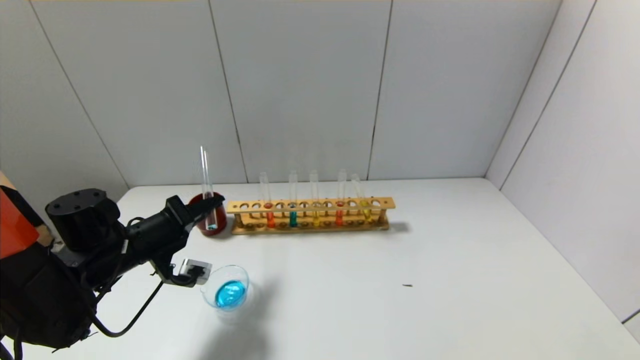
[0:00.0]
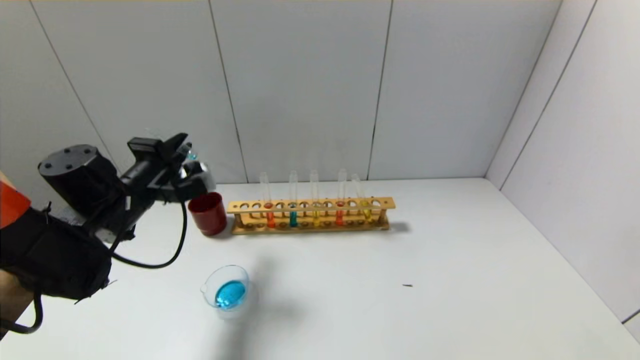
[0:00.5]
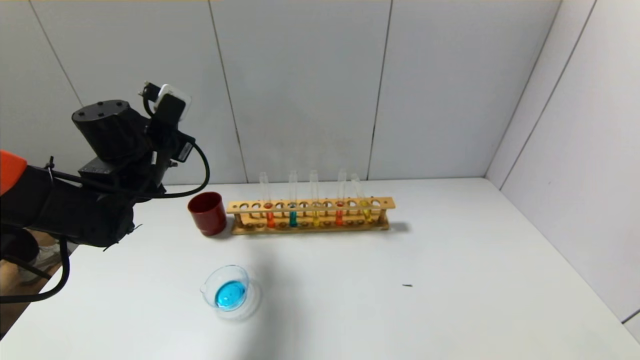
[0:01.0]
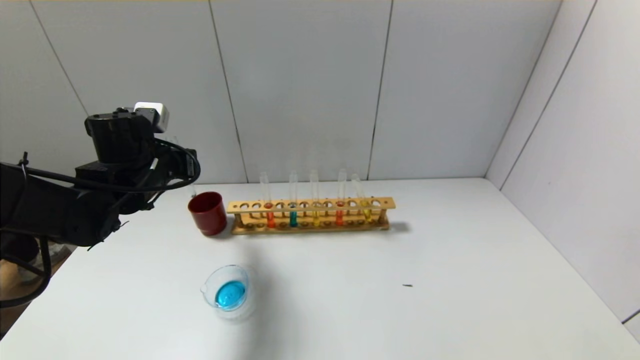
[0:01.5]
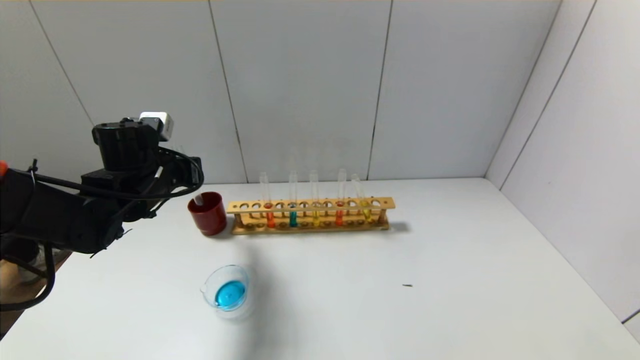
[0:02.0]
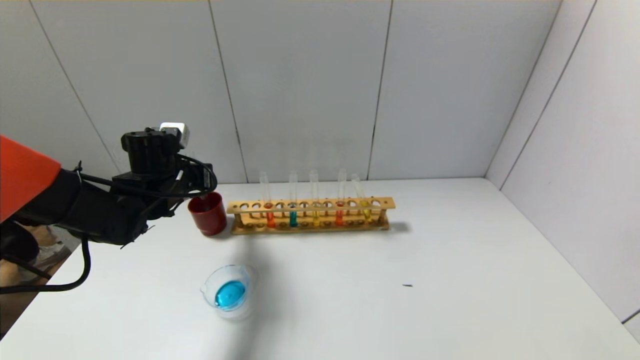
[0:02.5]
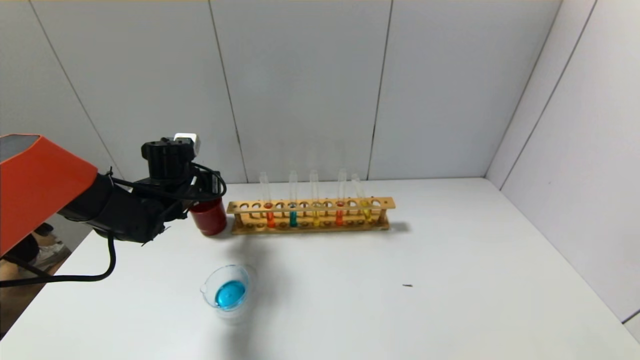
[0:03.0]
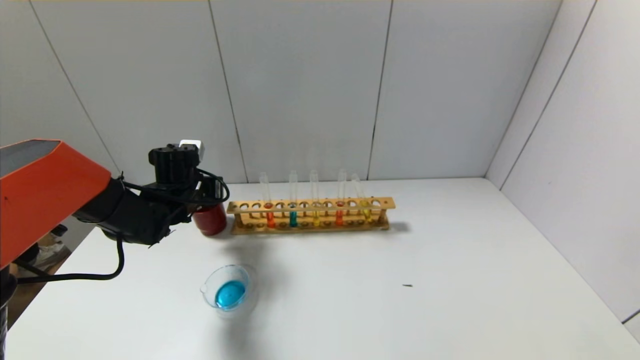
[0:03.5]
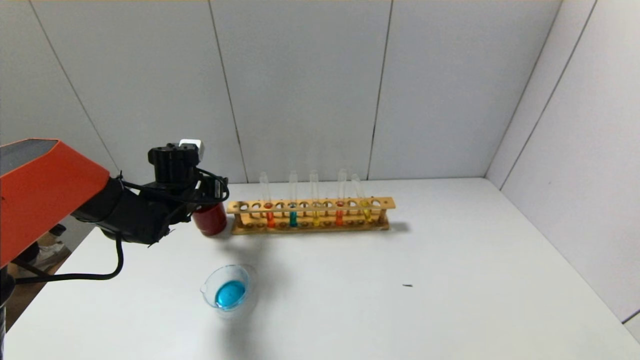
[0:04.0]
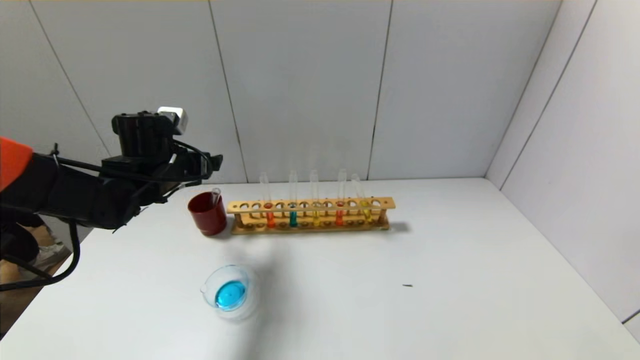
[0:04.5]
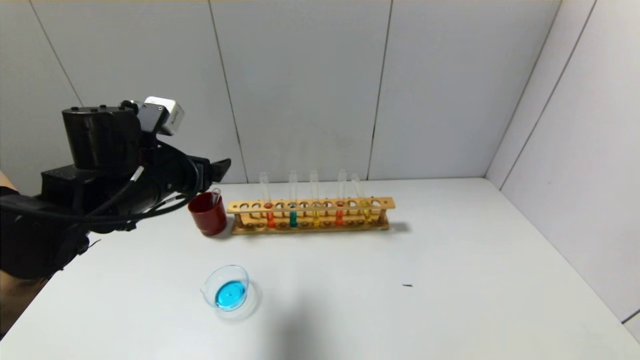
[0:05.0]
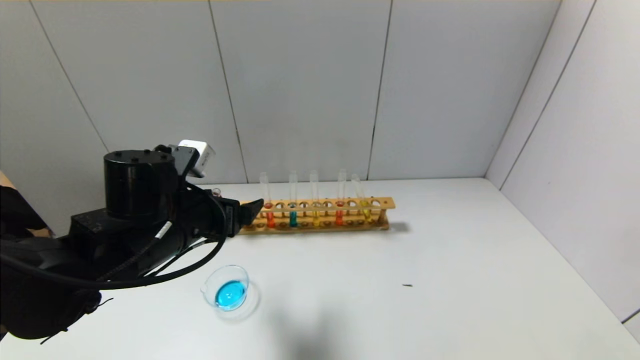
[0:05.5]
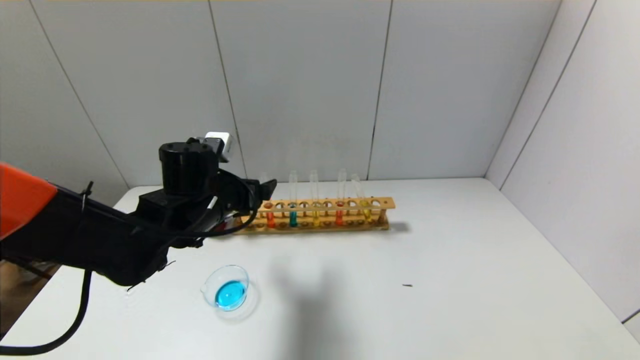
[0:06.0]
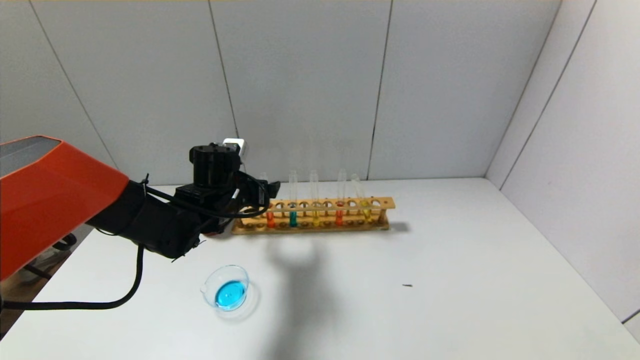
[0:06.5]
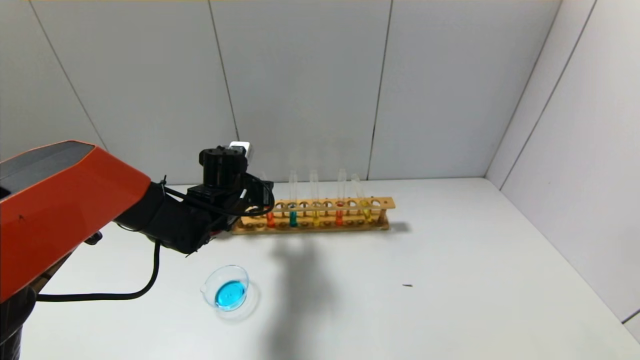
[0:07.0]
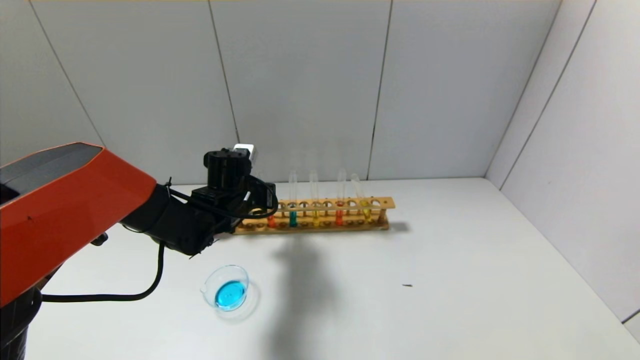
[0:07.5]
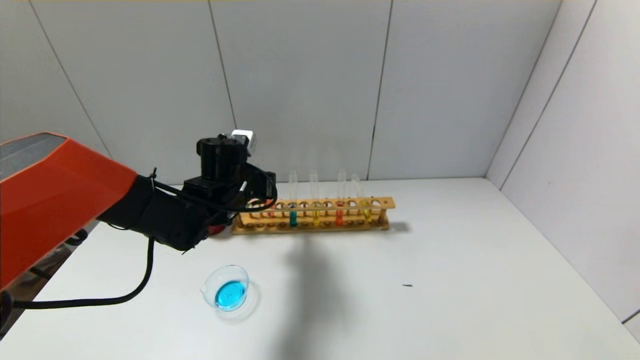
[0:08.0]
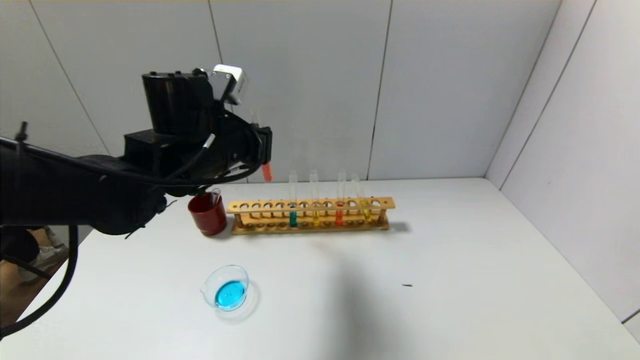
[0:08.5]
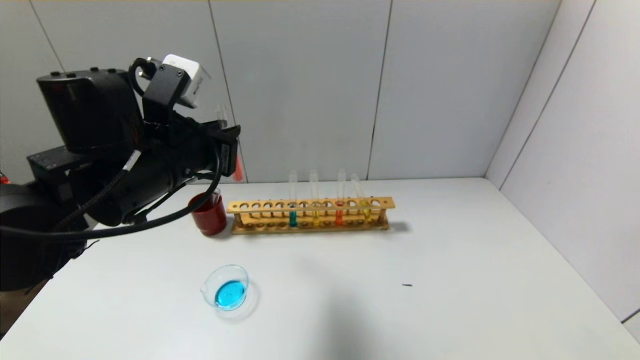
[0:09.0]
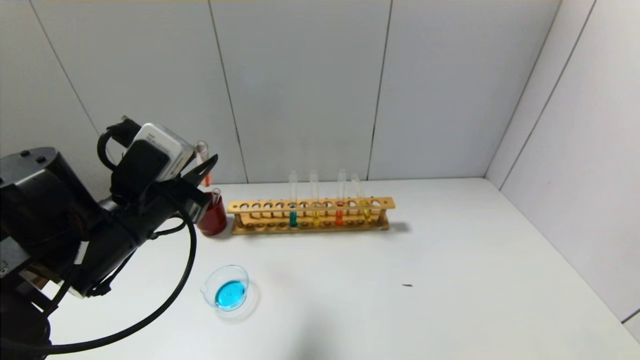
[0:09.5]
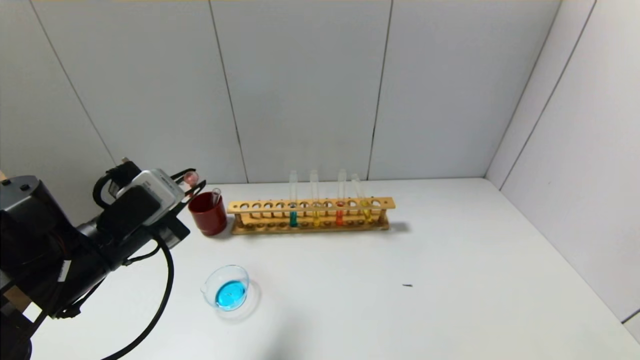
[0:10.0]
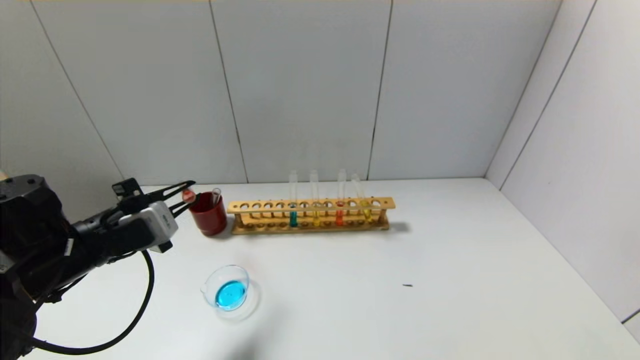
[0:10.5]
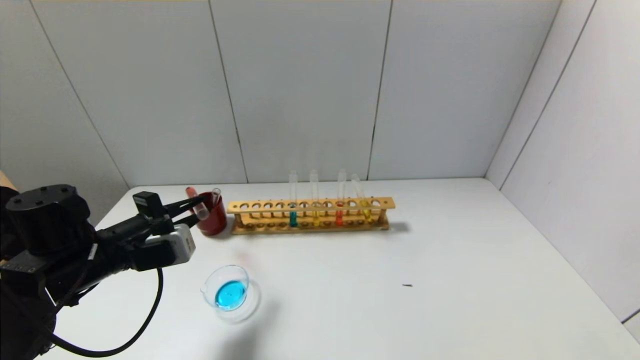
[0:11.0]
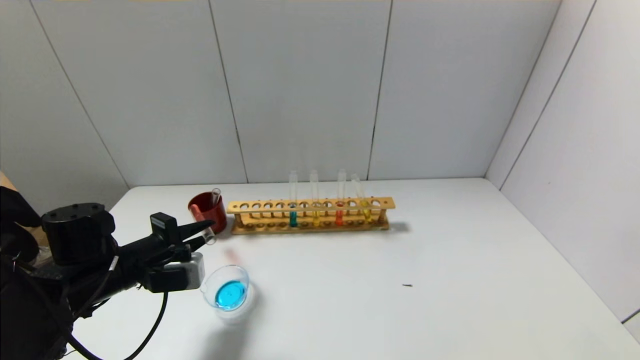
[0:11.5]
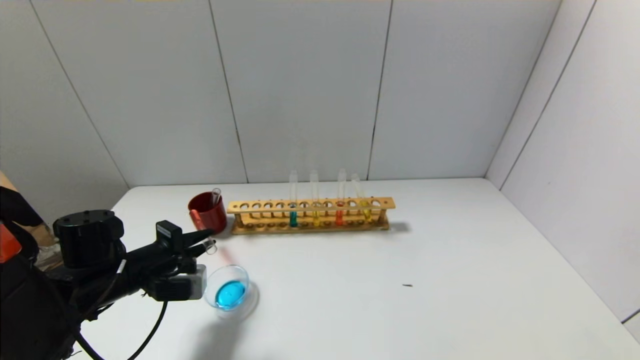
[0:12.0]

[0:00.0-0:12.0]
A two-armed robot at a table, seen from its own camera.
Step, 0:00.5 to 0:03.5: Place the test tube into the brown cup with the left gripper.
Step, 0:04.0 to 0:07.0: Grasp the red reagent with the left gripper.
0:00.0 to 0:02.0: The left gripper is displaced upward and forward by about 10 cm.
0:02.0 to 0:04.0: The left gripper shifts roughly 10 cm downward and forward, and opens up.
0:04.0 to 0:06.0: The left gripper shifts roughly 10 cm to the right and backward.
0:06.0 to 0:08.0: The left gripper closes up.
0:08.0 to 0:10.0: The left gripper travels backward and to the left by some 20 cm.
0:10.0 to 0:12.0: The left gripper heads downward, covering approximately 10 cm.

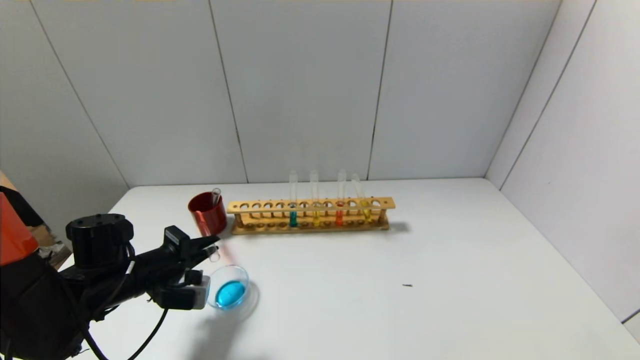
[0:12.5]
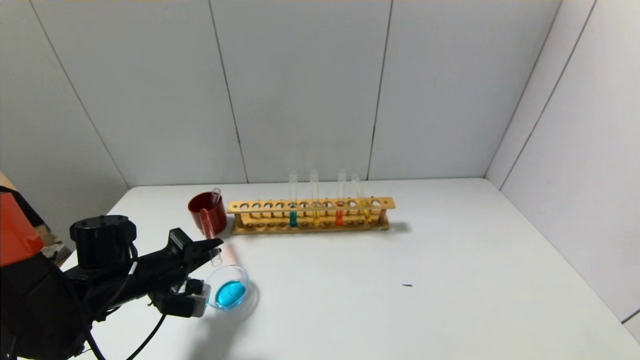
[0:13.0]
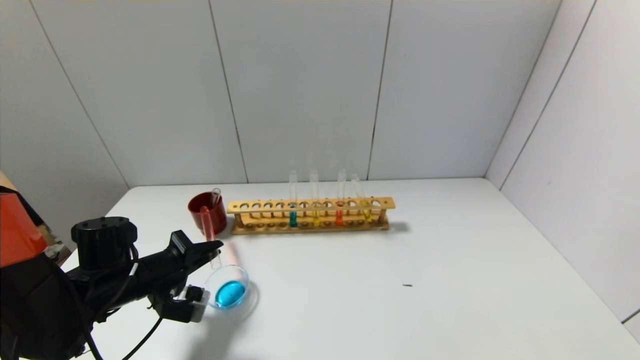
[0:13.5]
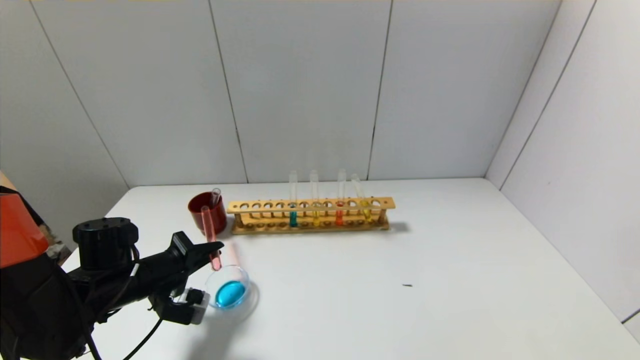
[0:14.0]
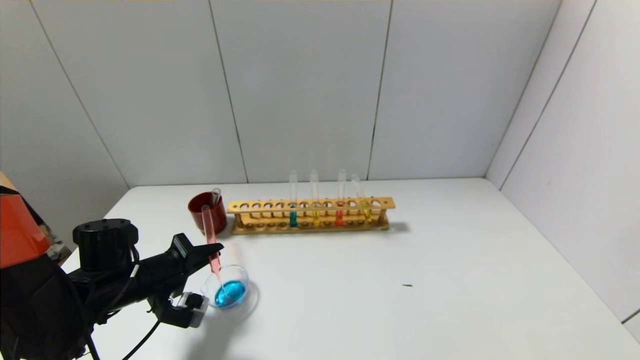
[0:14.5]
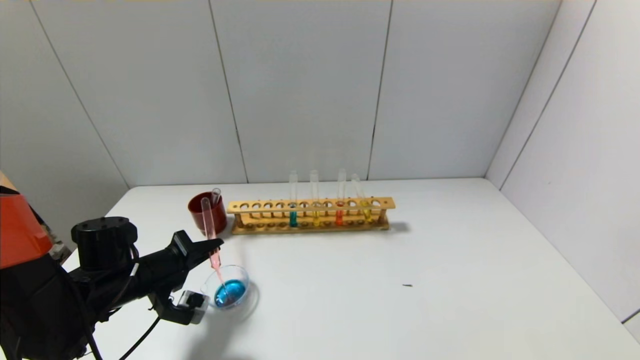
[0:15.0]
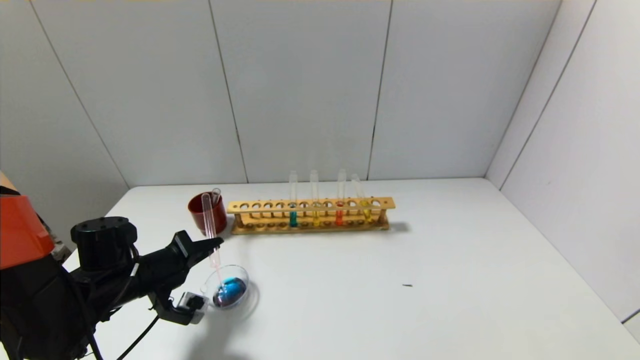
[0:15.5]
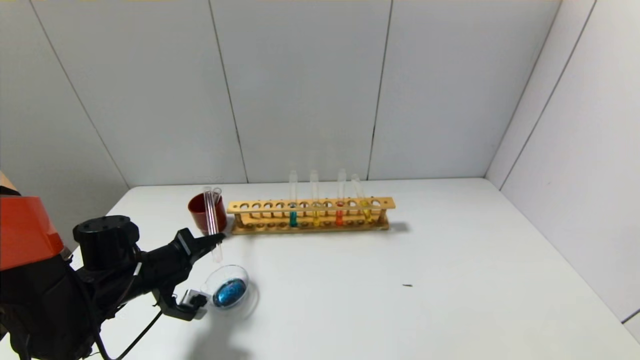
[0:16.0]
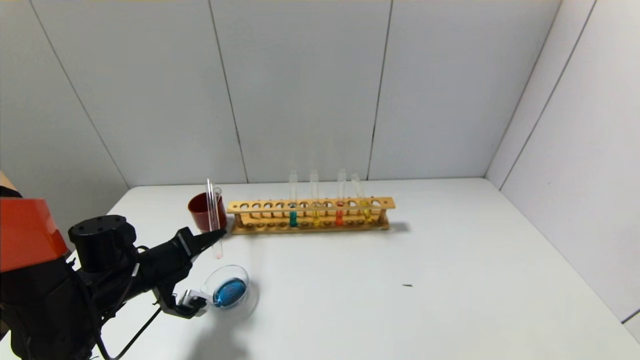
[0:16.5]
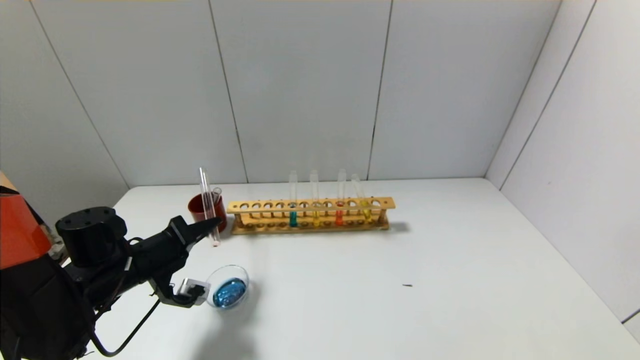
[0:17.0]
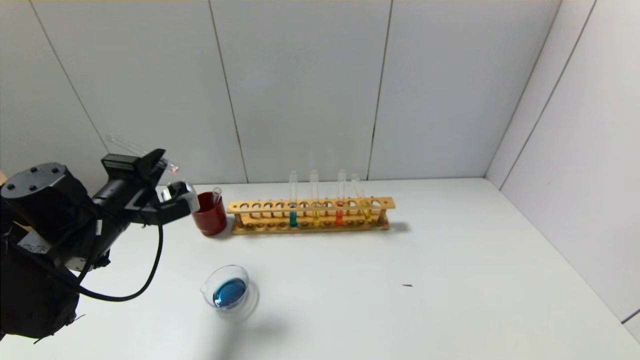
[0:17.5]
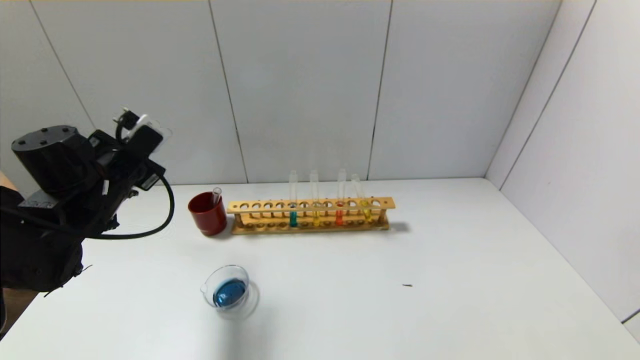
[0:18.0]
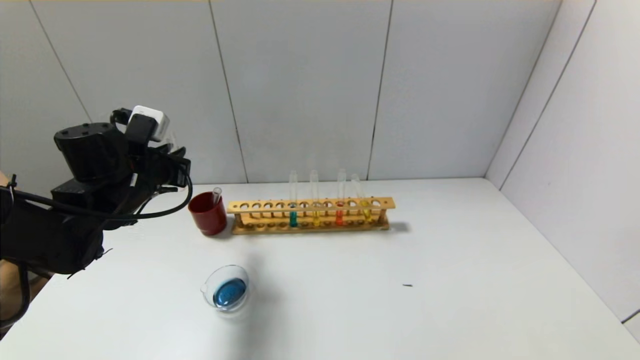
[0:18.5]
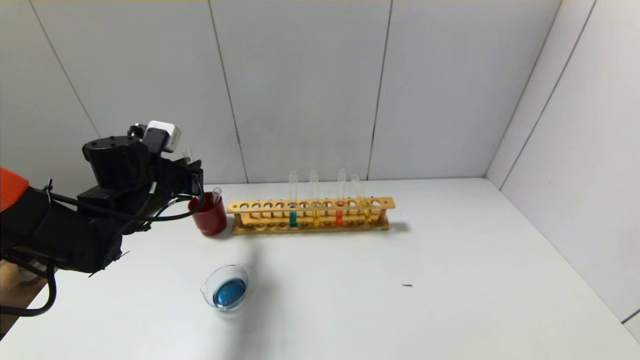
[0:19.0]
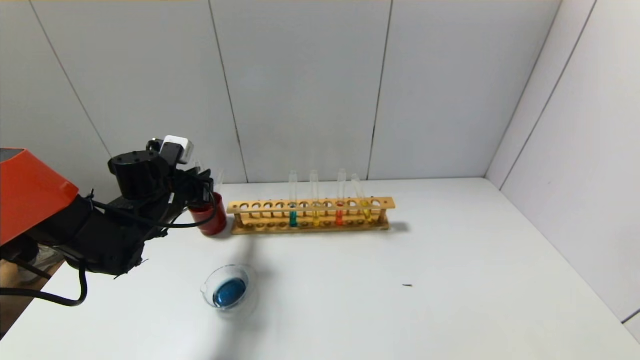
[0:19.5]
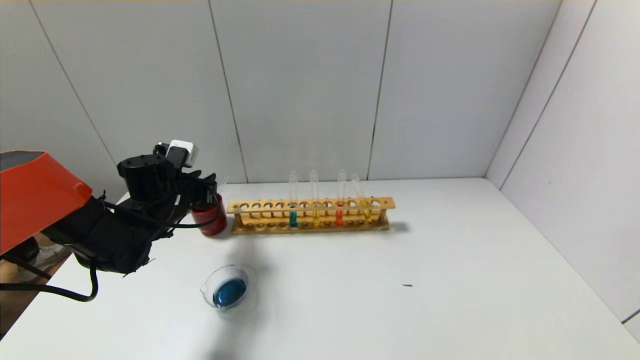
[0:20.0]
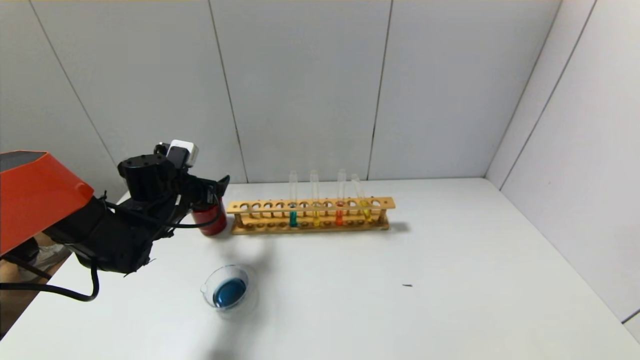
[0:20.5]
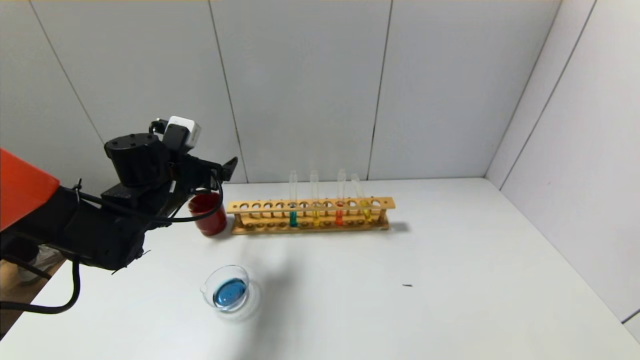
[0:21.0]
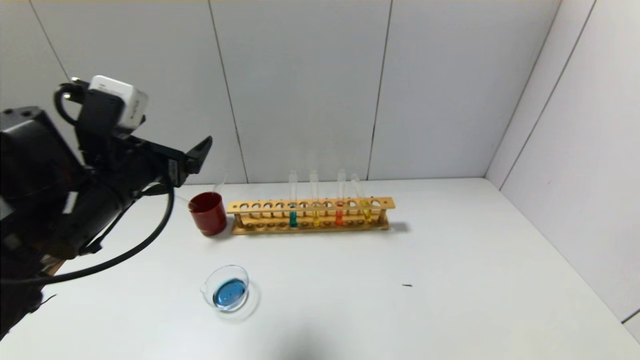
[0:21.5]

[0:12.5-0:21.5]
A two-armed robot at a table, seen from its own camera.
Step, 0:12.5 to 0:17.0: Pour the red reagent into the graduated cylinder with the left gripper.
Step, 0:17.5 to 0:20.0: Place the test tube into the brown cup with the left gripper.
0:12.5 to 0:14.5: The grippers stay close to where they were, moving slightly.
0:17.0 to 0:19.5: The left gripper goes roughly 10 cm forward, and reaches approximately 10 cm upward, then returns.
0:19.5 to 0:21.5: The left gripper moves backward and upward, roughly 20 cm, and opens up.
